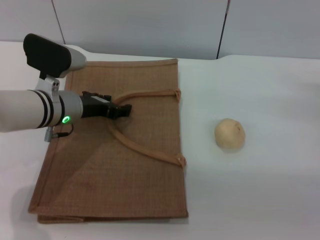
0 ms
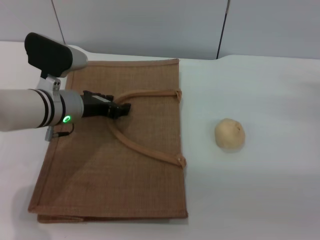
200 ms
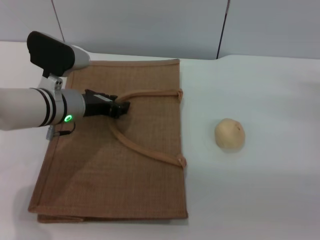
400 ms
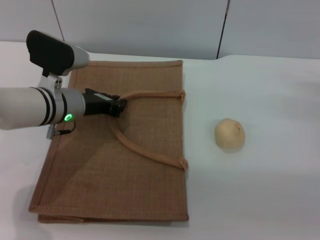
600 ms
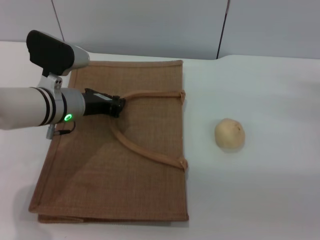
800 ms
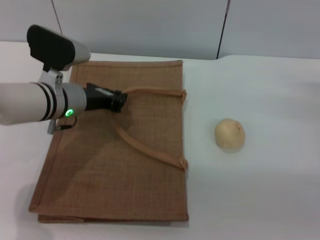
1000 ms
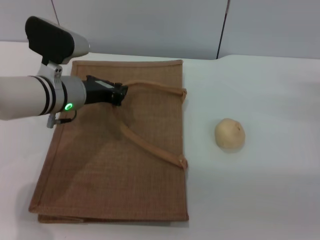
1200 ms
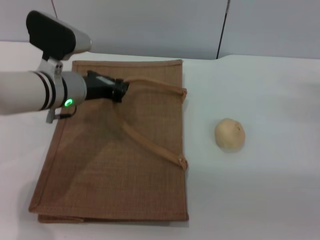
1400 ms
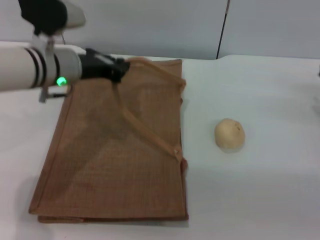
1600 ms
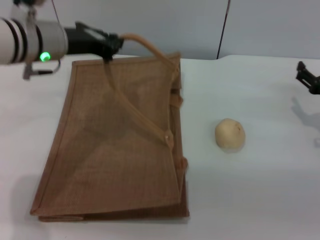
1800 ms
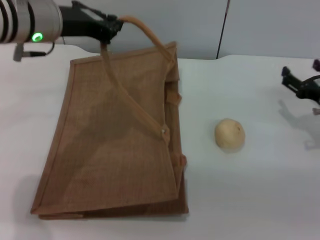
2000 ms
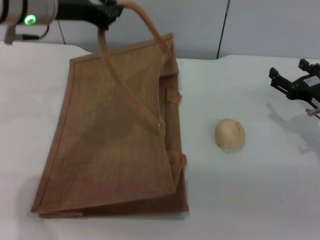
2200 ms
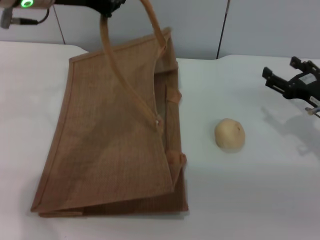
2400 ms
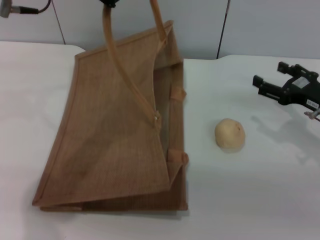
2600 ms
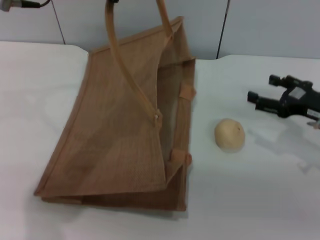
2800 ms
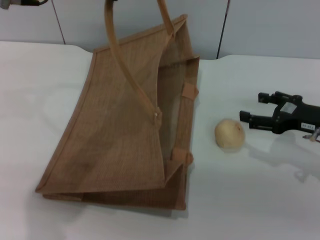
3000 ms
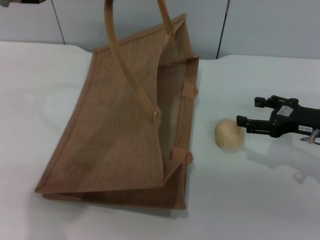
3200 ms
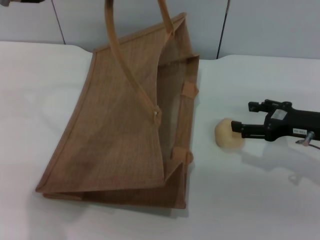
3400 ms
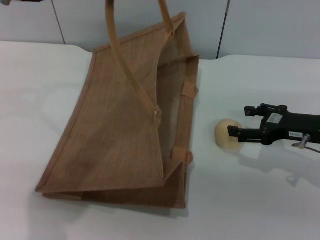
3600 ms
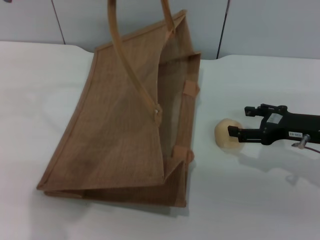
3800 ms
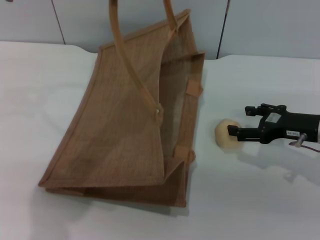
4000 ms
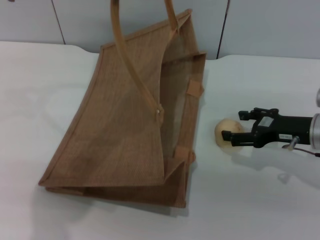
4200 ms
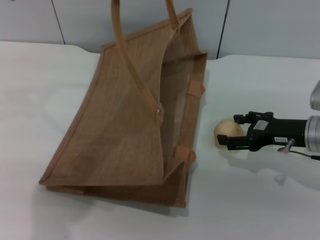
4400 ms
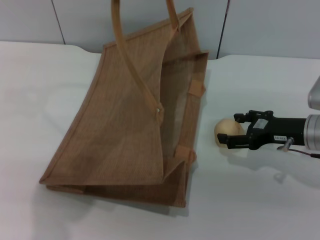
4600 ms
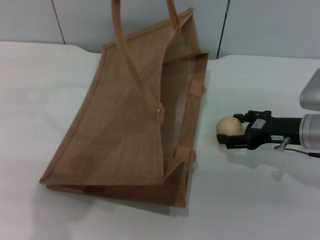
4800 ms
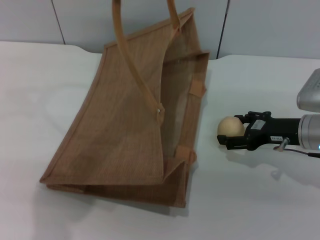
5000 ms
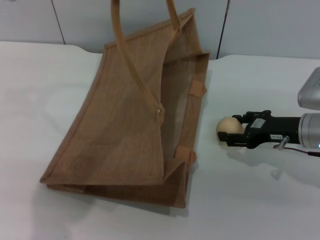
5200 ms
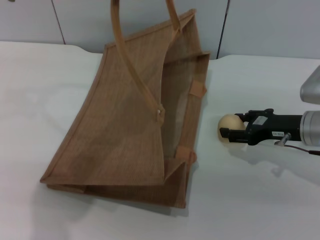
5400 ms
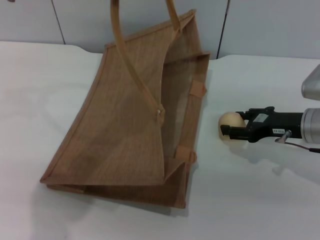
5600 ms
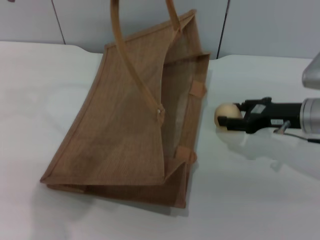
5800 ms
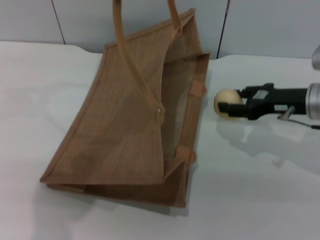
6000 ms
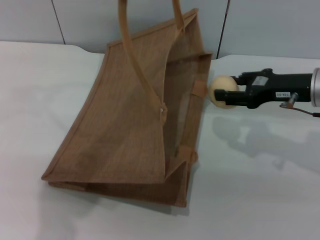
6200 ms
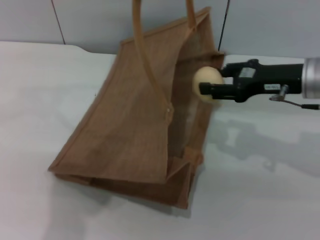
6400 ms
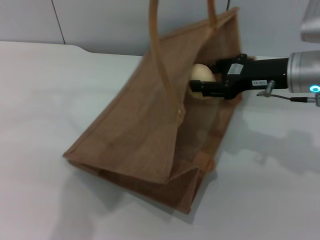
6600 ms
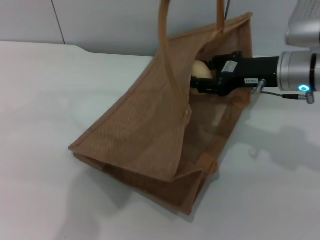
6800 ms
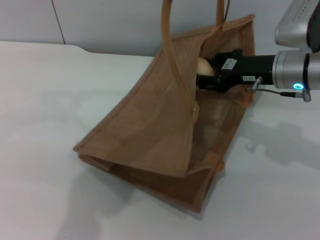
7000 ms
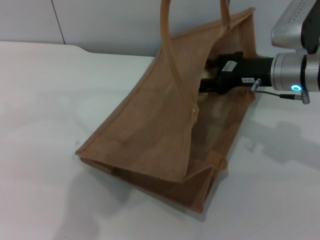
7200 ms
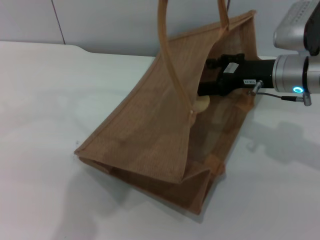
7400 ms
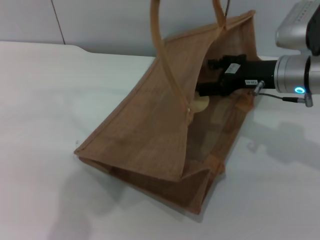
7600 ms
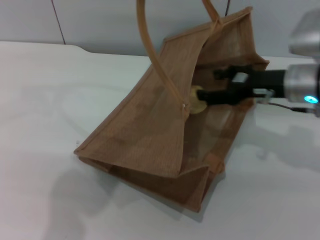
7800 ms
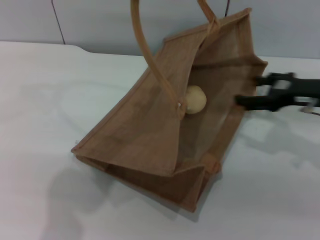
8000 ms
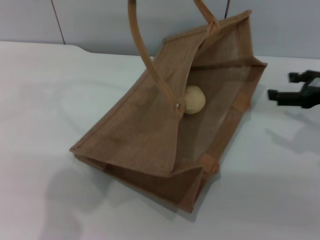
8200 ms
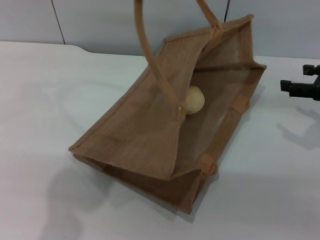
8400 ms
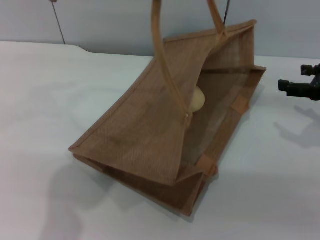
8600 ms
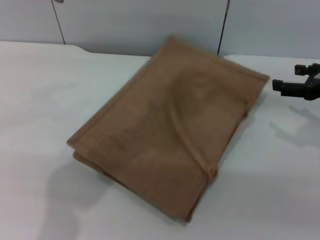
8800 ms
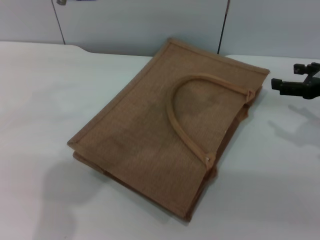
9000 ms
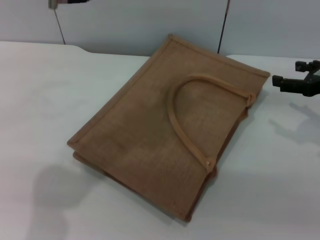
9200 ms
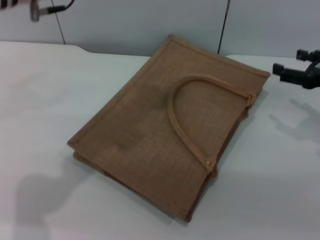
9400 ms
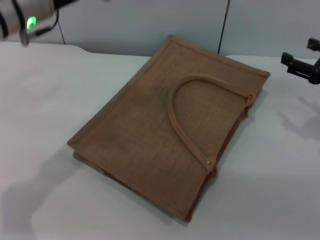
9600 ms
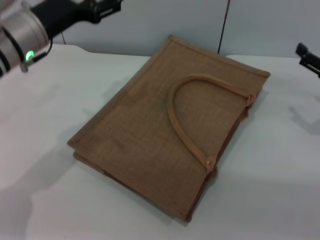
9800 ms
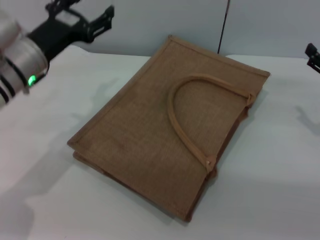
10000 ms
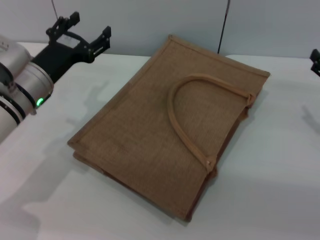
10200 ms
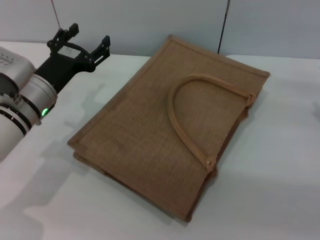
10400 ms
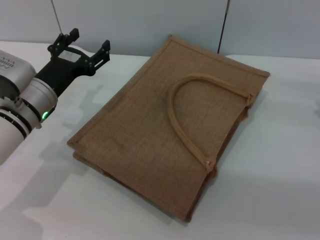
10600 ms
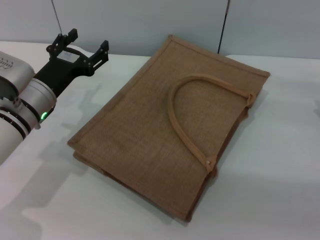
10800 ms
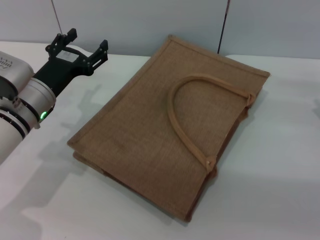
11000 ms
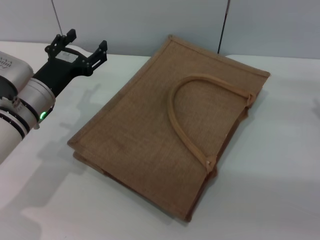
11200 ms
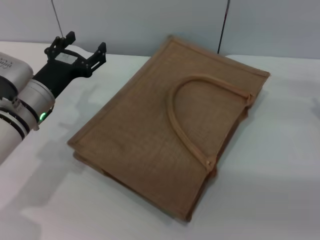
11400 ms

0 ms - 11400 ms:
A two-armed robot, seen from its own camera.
Task of the whole recording: pick up the egg yolk pastry from the table and place it in the brown handbag.
Step, 0 ms - 2000 ms: Lift the woven bag with the left gripper to open it.
Step, 2200 ms - 6000 ms: Pick up the egg yolk pastry with the right gripper.
Step, 6200 ms - 7800 ms: Place the egg yolk pastry into the woven bag with the right gripper.
Step, 8000 ms - 9000 ms: Lower the woven bag with the left gripper to close it.
0 ms - 1400 ms: The left gripper closes.
1400 ms - 2800 ms: The right gripper changes place by roughly 5 cm, while the left gripper moves upward, roughly 20 cm.
2800 ms - 4200 ms: The grippers stay close to where they were, moving slightly.
4200 ms - 5600 ms: The right gripper closes.
5600 ms - 7200 ms: The left gripper moves to the right, about 5 cm. The right gripper travels upward and to the left by roughly 10 cm.
7200 ms - 8600 ms: The right gripper travels to the right by about 15 cm, and opens up.
8600 ms - 10000 ms: The right gripper heads downward, covering some 5 cm. Meanwhile the left gripper is displaced downward and to the left by roughly 20 cm, and opens its fingers.
10000 ms - 11400 ms: The left gripper heads downward, covering roughly 5 cm.

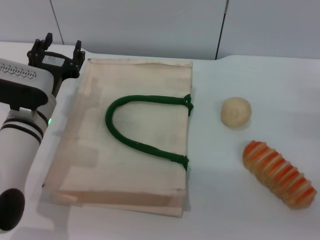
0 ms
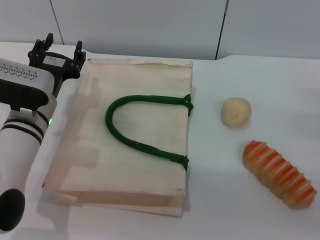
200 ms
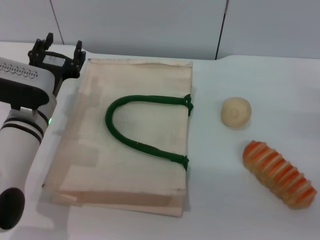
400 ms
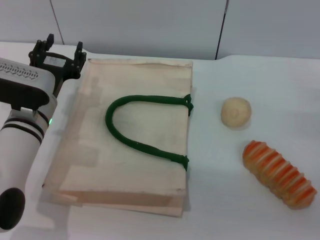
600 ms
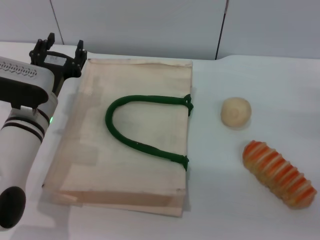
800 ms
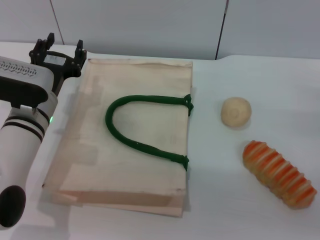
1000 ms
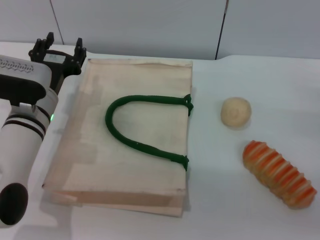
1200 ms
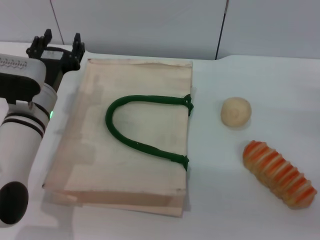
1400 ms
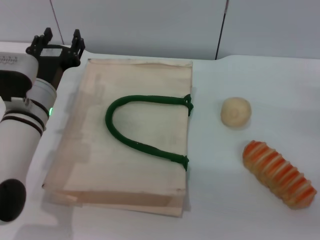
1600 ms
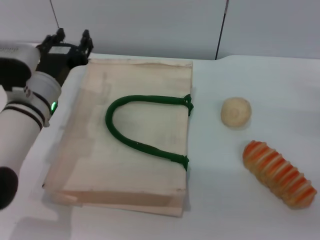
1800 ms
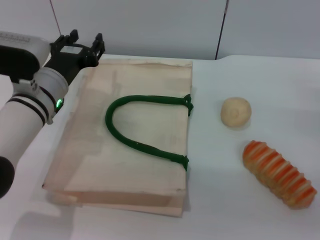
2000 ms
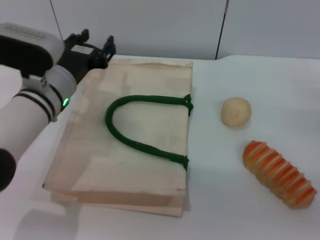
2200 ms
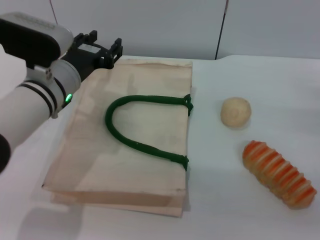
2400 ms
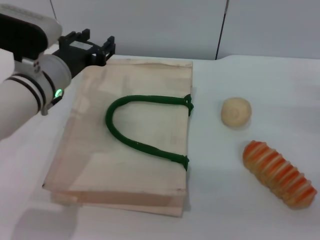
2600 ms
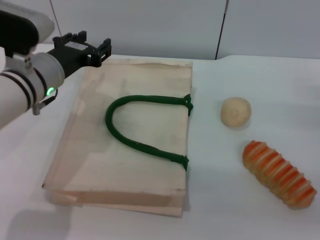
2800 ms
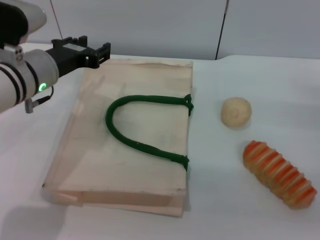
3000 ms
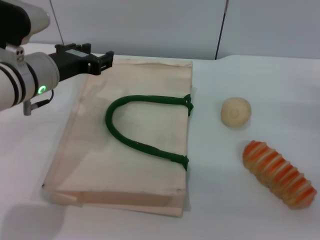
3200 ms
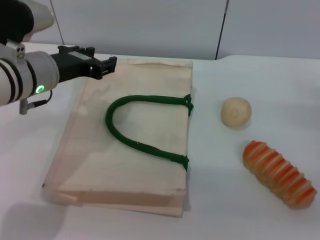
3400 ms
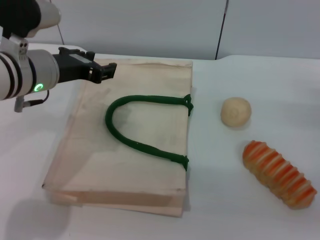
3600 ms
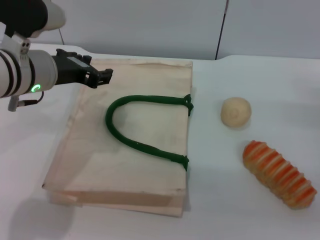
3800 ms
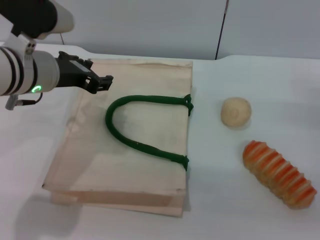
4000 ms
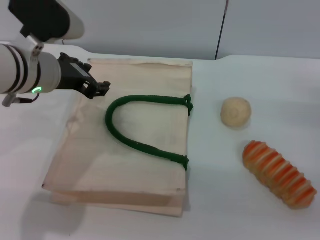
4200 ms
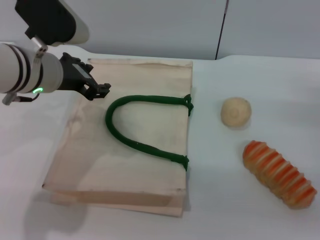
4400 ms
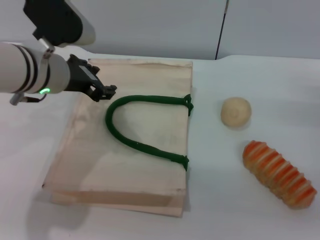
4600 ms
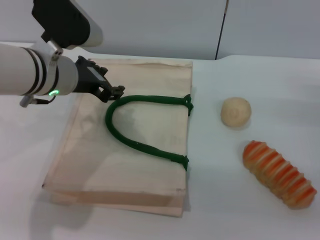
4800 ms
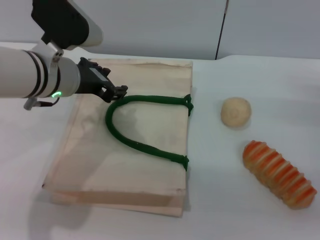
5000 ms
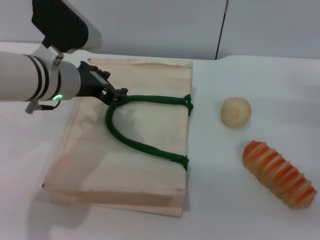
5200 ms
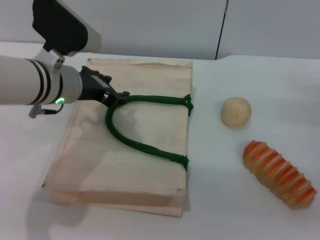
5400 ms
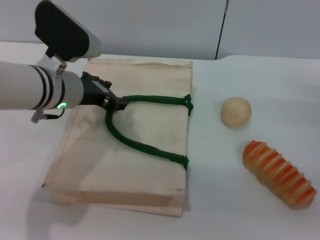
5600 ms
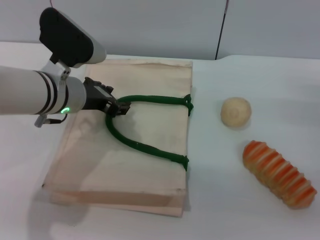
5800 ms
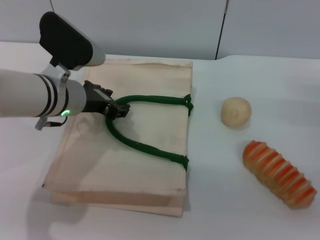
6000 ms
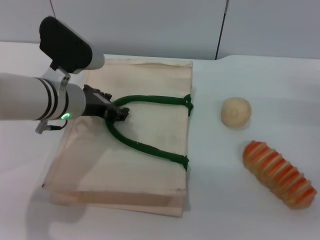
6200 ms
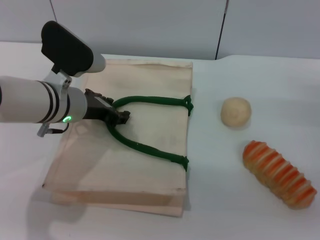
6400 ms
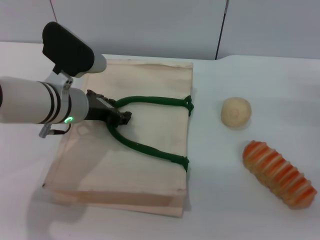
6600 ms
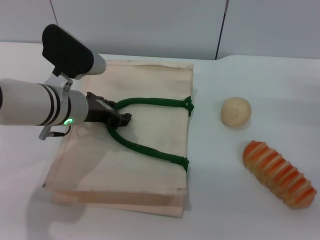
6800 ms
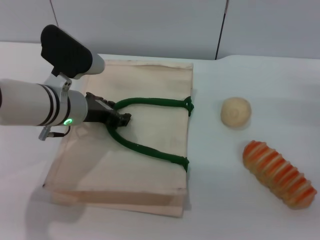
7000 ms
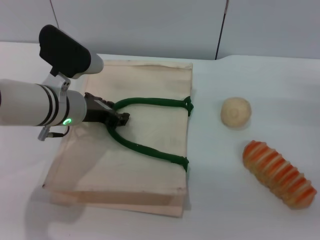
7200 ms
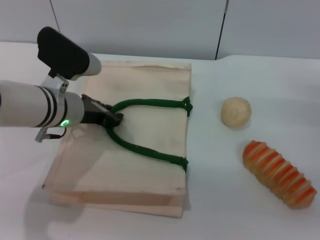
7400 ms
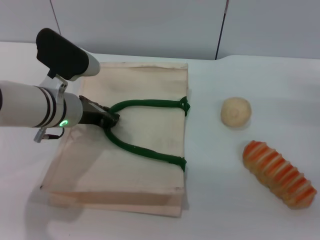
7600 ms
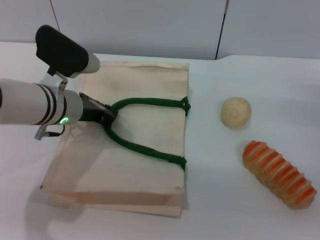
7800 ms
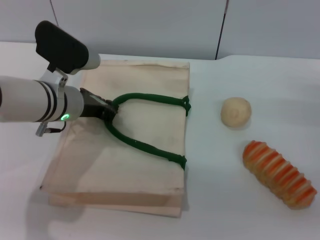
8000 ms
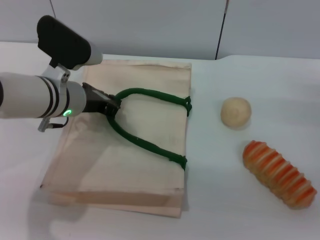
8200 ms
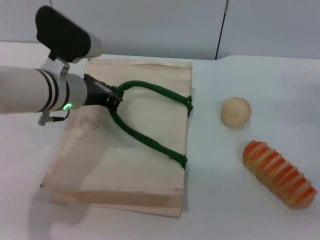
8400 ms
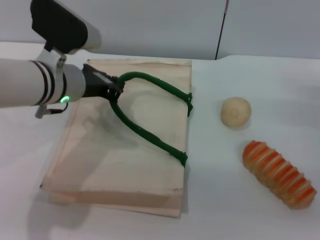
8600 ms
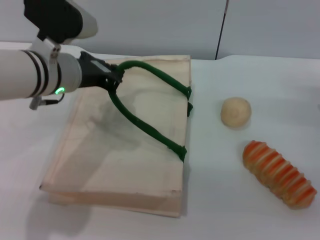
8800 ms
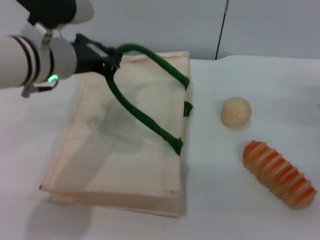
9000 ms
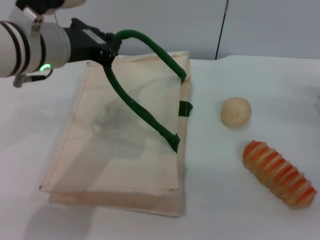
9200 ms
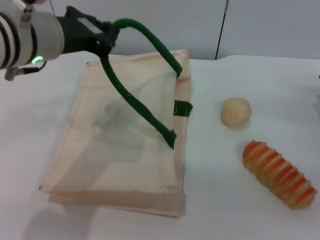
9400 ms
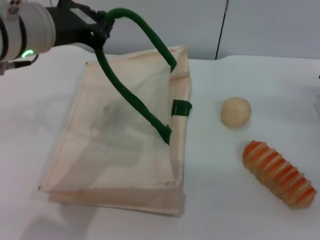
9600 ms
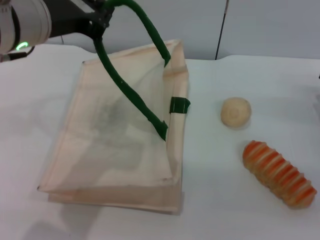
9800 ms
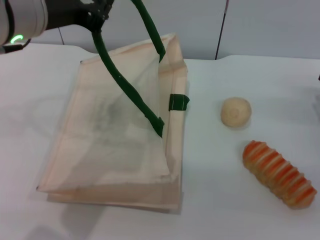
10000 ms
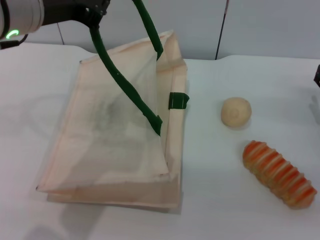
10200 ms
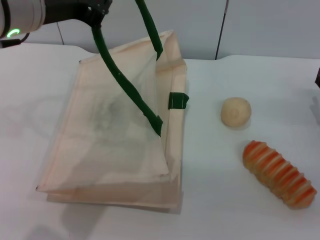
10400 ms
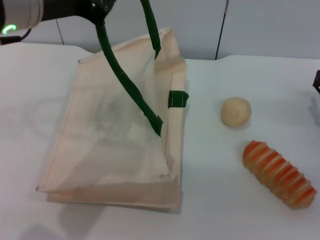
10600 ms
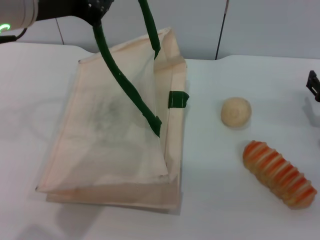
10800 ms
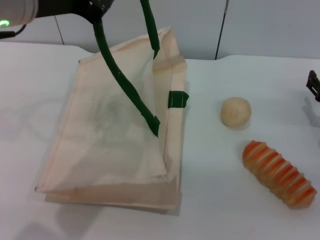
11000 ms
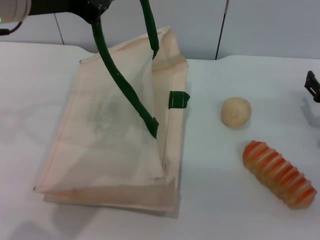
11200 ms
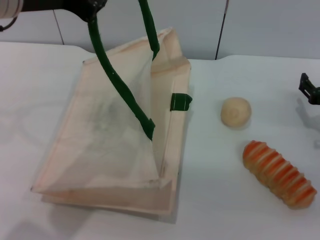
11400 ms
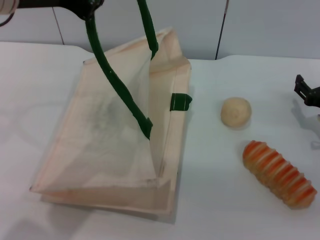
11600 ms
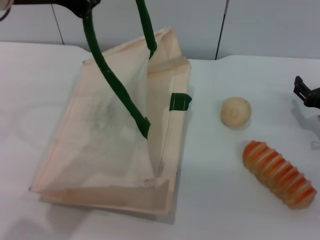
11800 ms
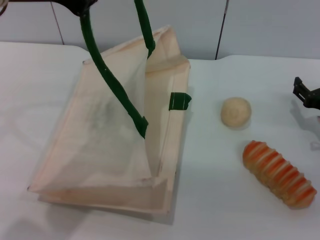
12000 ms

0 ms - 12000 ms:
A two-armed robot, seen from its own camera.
Task of the whole recording: pick up the bread and egg yolk pastry from the table and place it in the white handbag.
Step, 0 ms - 11000 ms: Lift the woven bag with the left gripper to open it.
0 ms - 1600 ms: There are only small adjustments of the grippers.
1600 ms - 3000 ms: The left gripper heads upward, covering some 5 cm.
4400 ms - 6000 ms: The left gripper moves downward, roughly 5 cm.
6000 ms - 7600 ms: The grippers move only a little.
7600 ms - 9000 ms: The left gripper heads upward, covering some 10 cm, and closes.
9000 ms - 10400 ms: The left gripper shifts some 10 cm upward.
10400 ms - 12000 ms: There are only small adjustments of the grippers.
